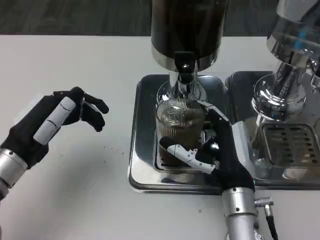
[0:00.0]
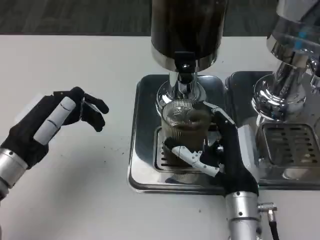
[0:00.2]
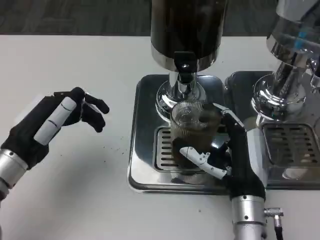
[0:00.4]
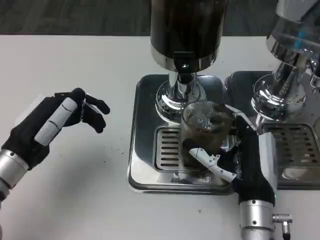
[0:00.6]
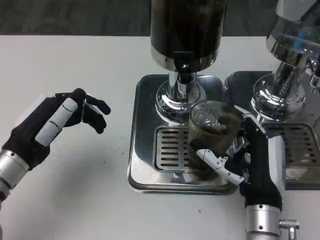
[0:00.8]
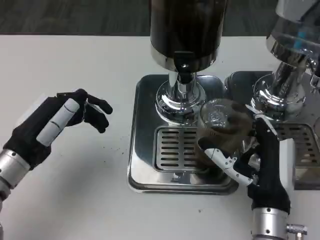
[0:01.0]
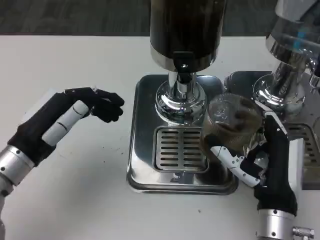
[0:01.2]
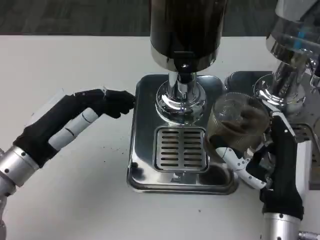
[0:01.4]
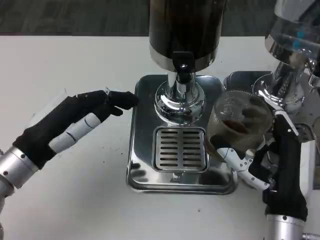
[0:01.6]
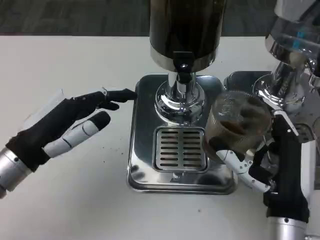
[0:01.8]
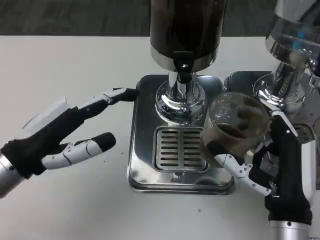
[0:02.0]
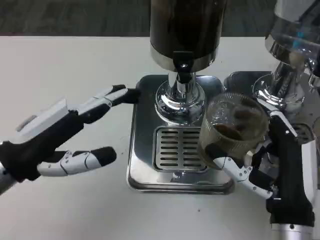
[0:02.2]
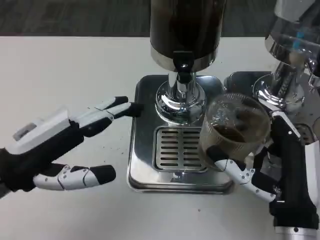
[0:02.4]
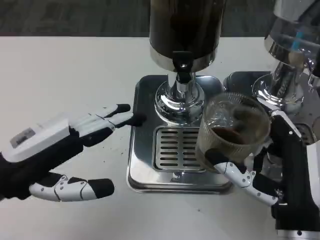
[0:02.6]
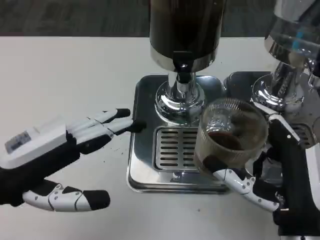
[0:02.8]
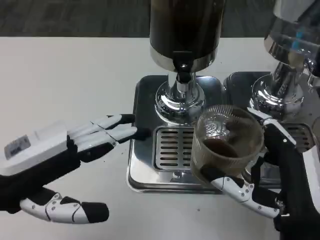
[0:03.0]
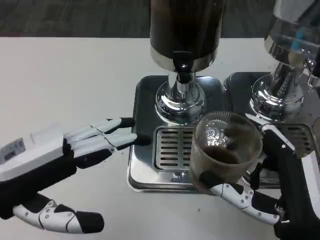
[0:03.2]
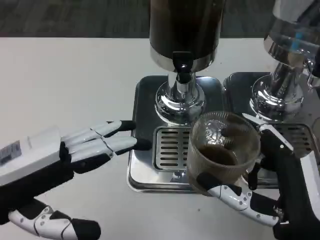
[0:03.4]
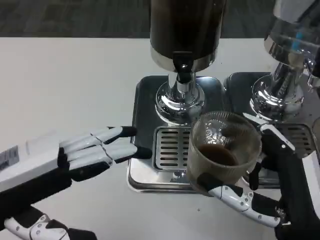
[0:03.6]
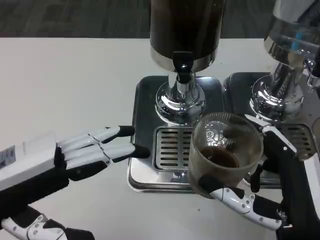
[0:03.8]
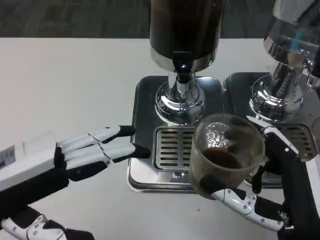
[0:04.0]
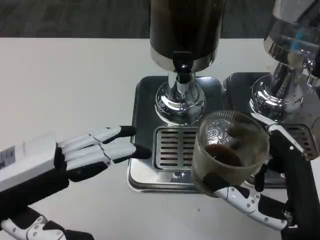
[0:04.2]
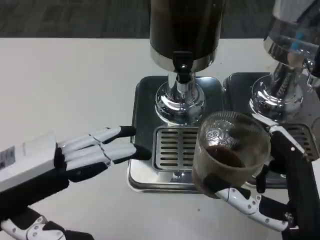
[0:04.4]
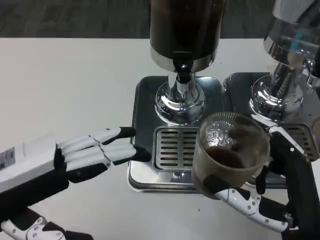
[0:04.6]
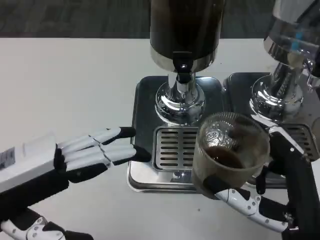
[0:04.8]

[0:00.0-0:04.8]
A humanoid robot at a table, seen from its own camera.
Task of the whole recording: Grasp the cup under the faucet to collect the drink, then remove the cup.
0:00.0 to 0:01.6: The right hand moves roughly 5 cm.
0:01.6 to 0:03.2: The right hand heads backward, covering approximately 5 cm; the left hand is displaced backward and upward by some 10 cm.
0:03.2 to 0:04.8: The hands move only a little.

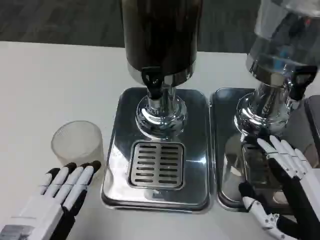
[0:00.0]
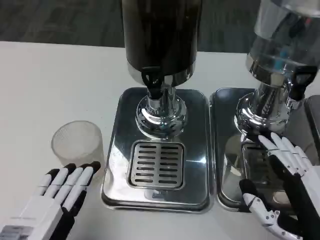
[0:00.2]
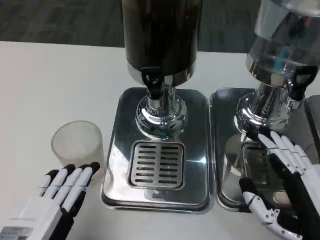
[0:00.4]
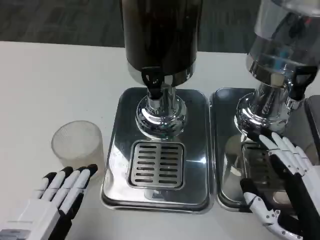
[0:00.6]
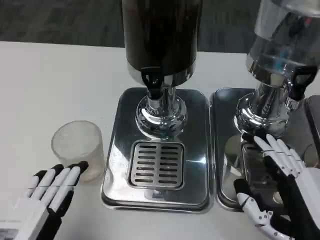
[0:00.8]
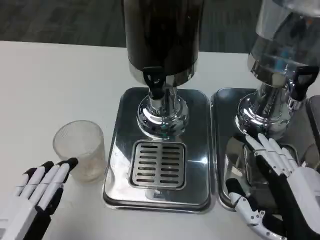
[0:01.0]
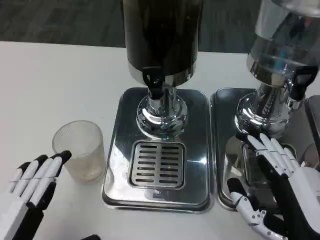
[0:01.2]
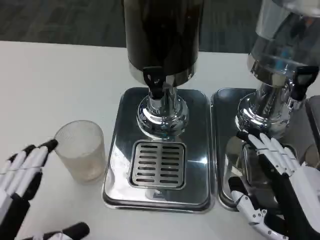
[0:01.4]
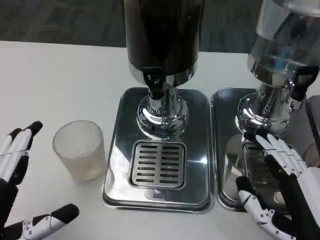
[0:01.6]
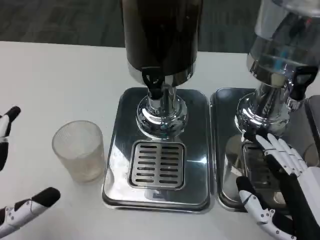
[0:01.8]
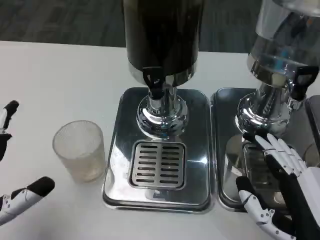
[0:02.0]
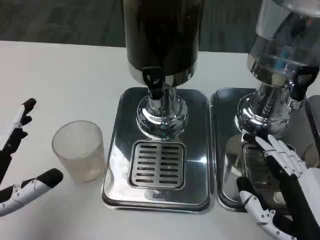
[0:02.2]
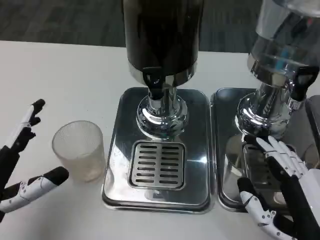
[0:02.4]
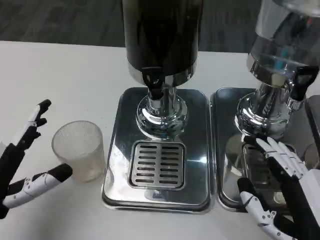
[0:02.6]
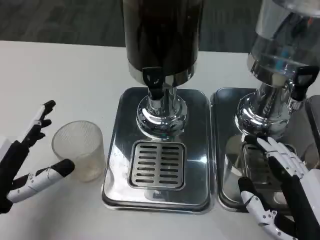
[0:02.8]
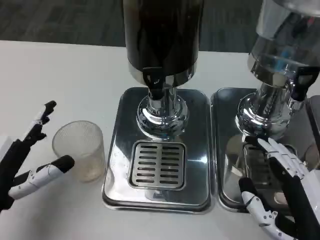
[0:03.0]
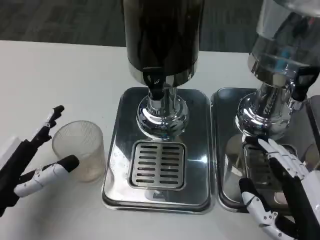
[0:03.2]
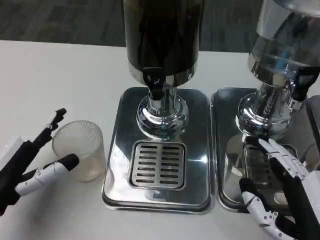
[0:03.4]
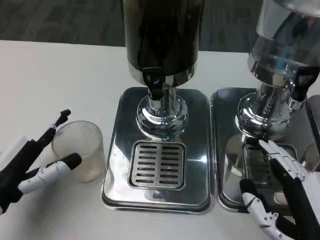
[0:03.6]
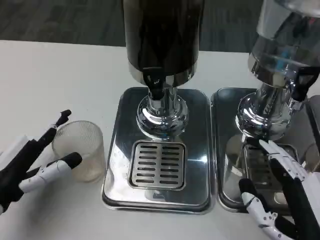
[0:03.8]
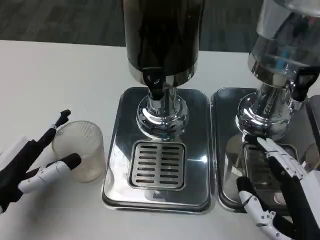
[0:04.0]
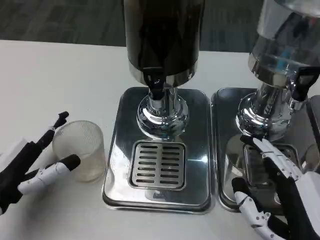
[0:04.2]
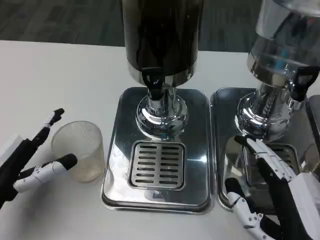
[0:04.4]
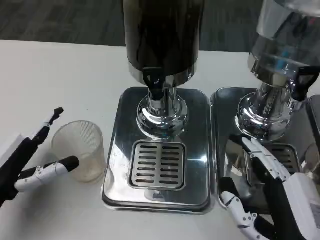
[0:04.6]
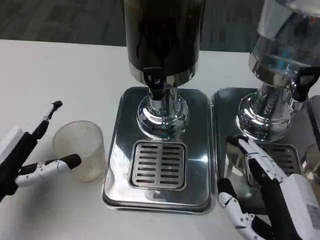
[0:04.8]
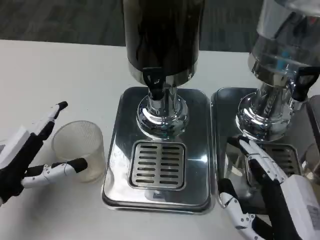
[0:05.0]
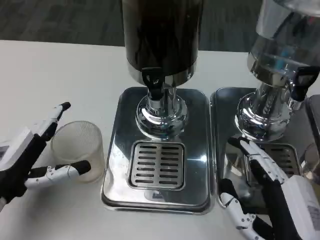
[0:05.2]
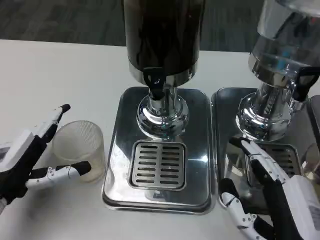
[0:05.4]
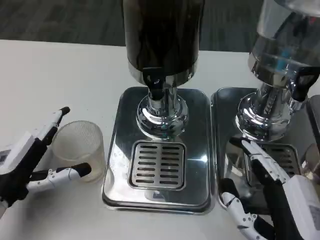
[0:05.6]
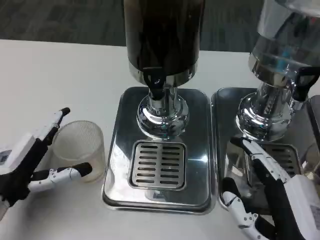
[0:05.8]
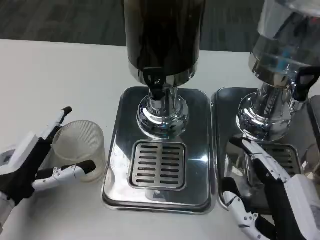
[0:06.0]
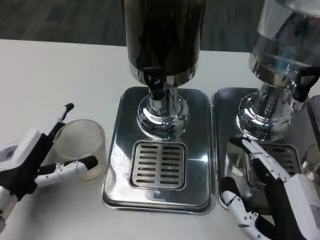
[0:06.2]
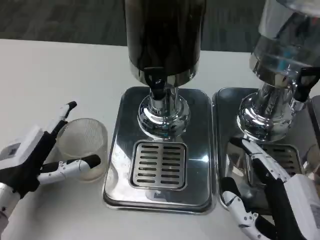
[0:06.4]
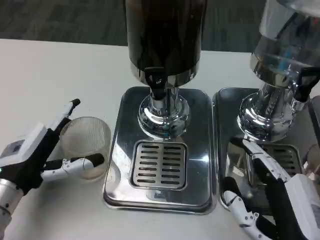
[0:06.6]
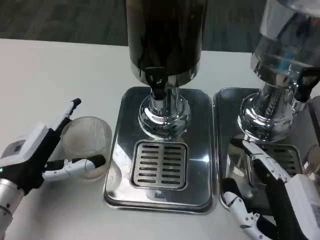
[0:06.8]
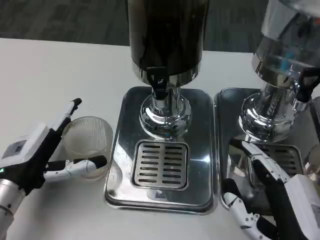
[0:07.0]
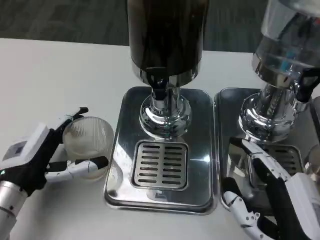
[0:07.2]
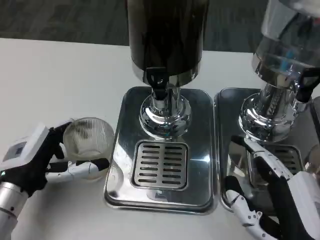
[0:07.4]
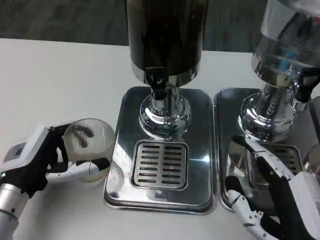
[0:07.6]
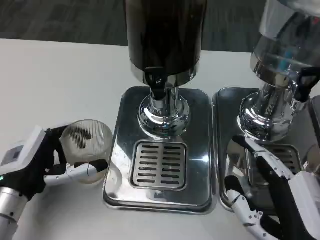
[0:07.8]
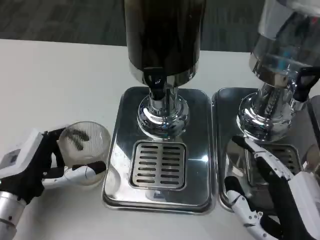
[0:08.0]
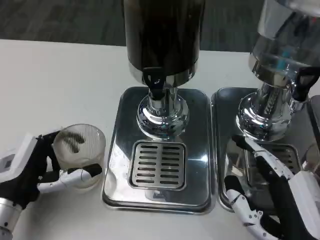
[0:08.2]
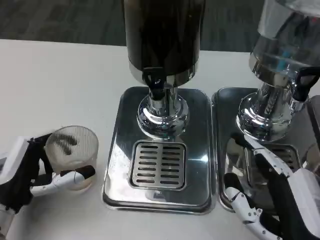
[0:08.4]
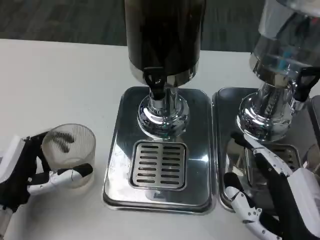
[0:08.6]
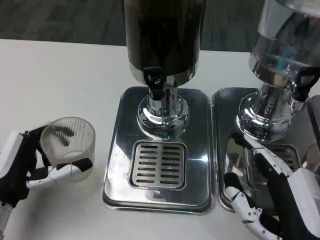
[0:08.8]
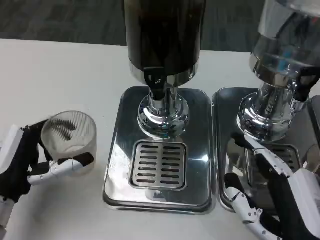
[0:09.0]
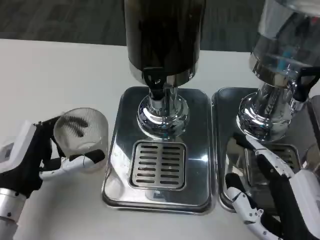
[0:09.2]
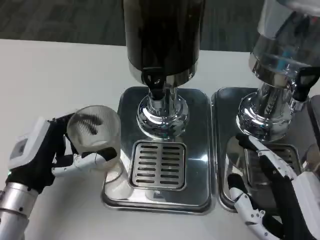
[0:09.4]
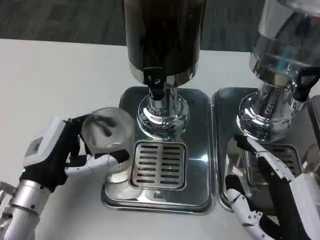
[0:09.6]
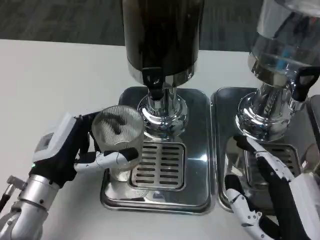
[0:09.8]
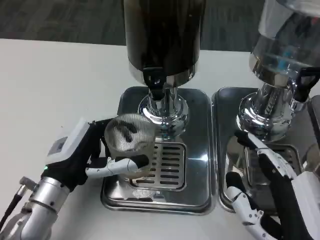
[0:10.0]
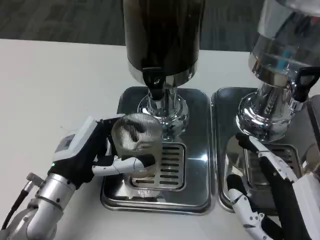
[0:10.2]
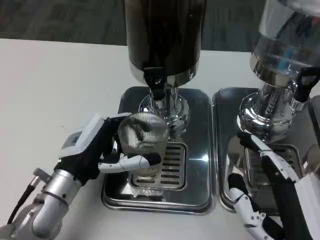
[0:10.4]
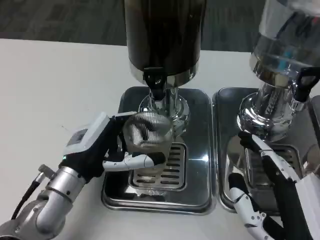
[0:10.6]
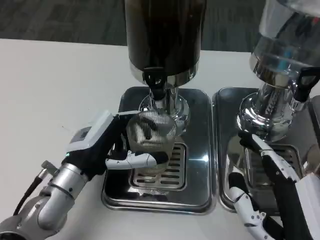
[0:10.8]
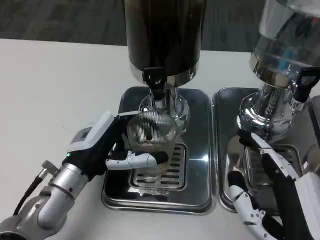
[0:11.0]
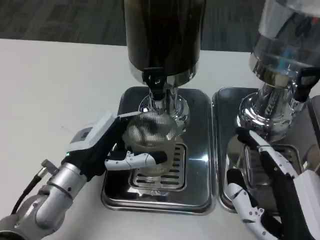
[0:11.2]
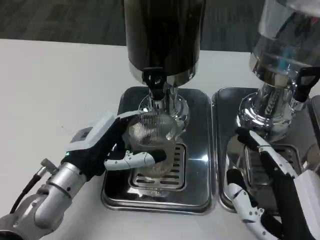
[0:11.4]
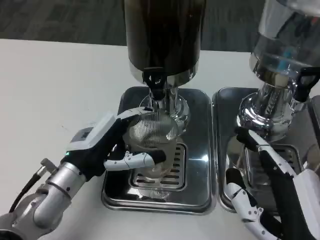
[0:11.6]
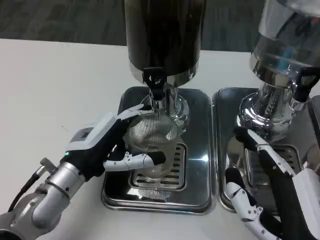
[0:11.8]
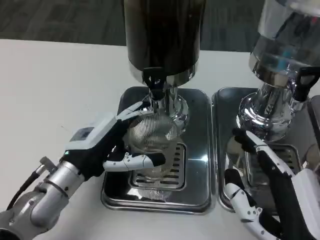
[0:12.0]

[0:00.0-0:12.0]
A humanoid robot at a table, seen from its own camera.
Task of the whole recording: Grasp the cup under the faucet to collect the drink, then remove the cup.
0:01.6 to 0:03.0: The left hand is displaced forward by roughly 10 cm.
0:03.0 to 0:06.0: The hands make only small movements.
0:07.6 to 0:09.0: The hands make only small movements.
0:09.0 to 0:10.4: The left hand travels to the right by approximately 10 cm.
0:10.4 to 0:12.0: There are only small adjustments of the hands.

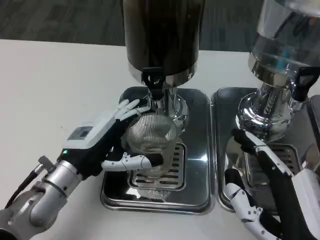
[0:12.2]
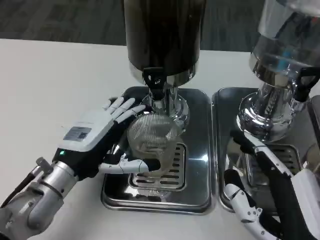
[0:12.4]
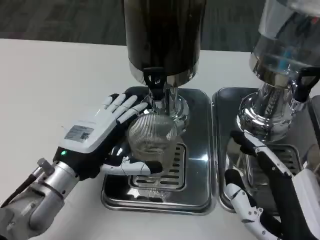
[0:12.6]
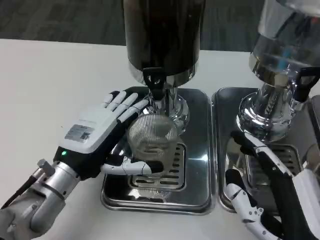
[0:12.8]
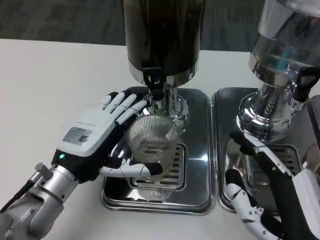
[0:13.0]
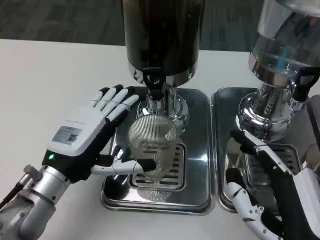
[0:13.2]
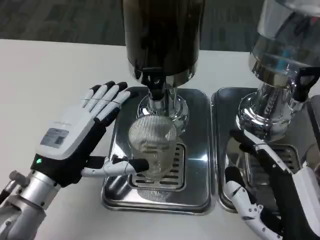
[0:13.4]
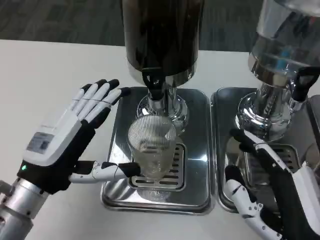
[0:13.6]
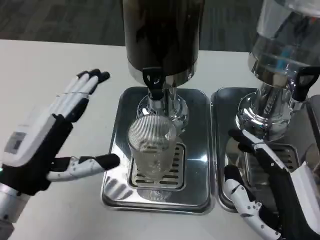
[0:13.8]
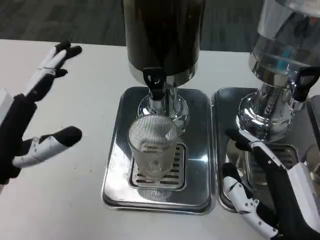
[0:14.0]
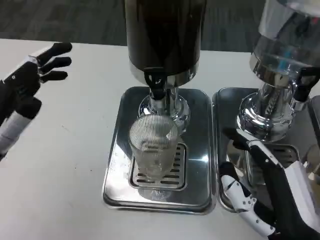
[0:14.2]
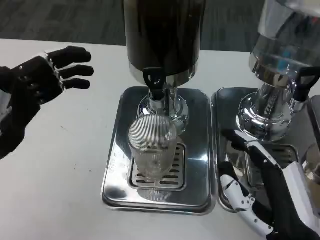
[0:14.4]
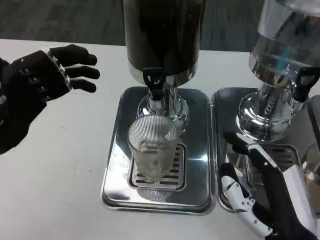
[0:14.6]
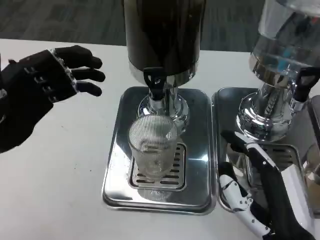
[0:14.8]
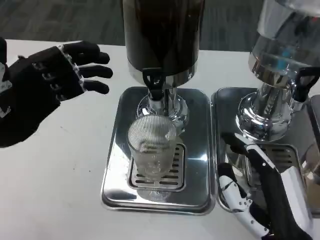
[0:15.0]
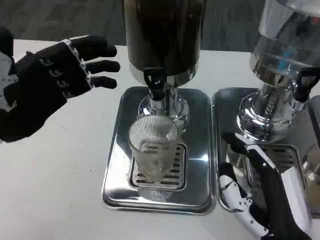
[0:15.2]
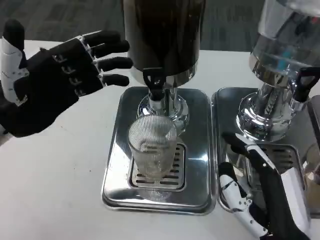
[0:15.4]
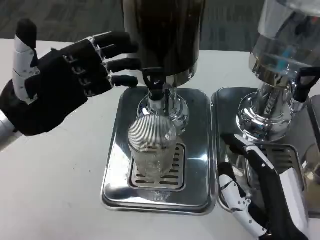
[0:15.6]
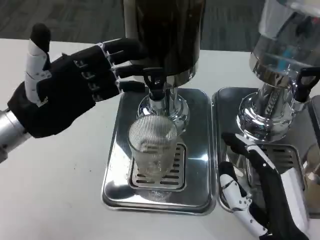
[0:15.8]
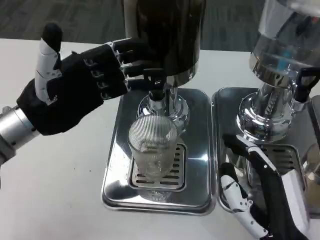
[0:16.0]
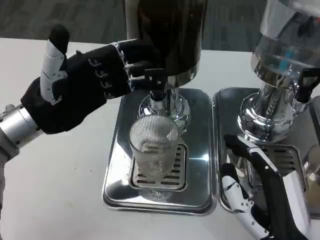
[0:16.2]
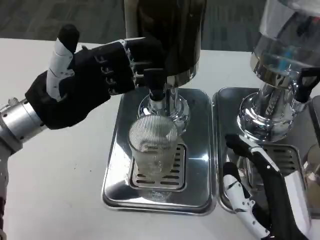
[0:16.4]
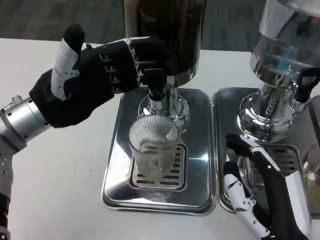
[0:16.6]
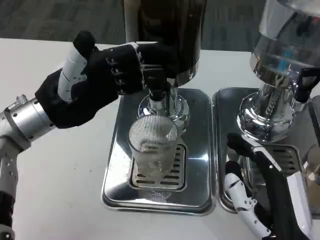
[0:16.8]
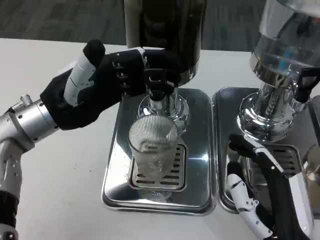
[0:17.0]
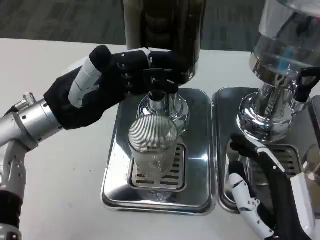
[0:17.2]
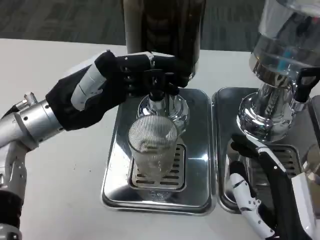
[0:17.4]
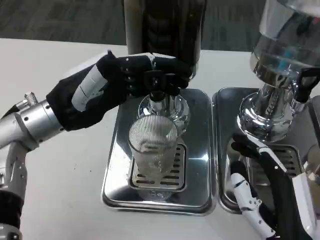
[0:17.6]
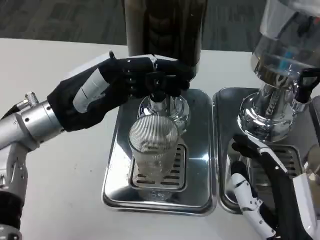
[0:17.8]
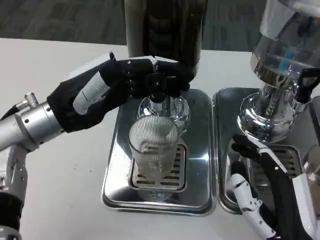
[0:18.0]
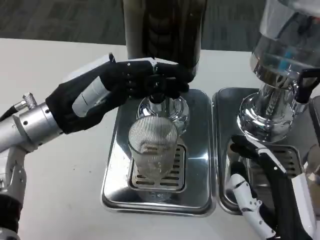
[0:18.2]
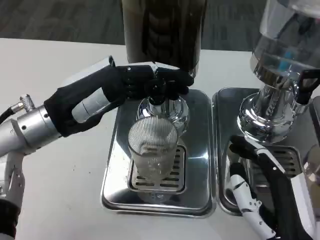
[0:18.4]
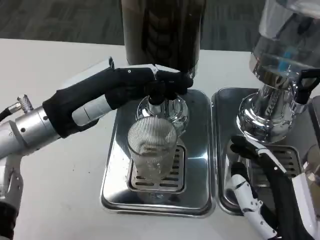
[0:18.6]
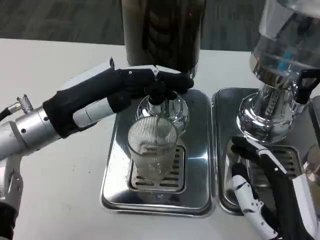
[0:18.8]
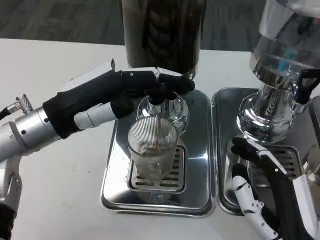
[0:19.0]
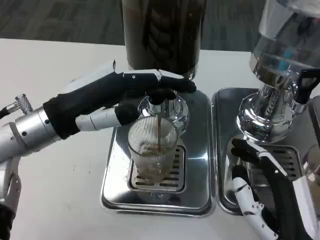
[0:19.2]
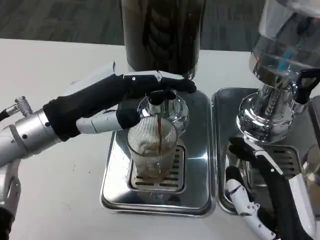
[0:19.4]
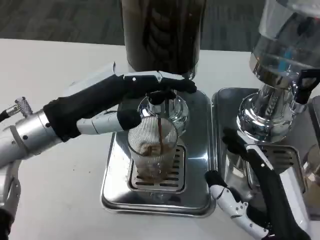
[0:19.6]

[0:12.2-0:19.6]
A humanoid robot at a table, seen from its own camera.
Task of the whole recording: Grasp the cup under the faucet to collect the drink, then remove the cup.
0:12.2 to 0:13.6: The left hand shifts about 5 cm backward.
0:13.6 to 0:15.2: The left hand is displaced upward, to the left and forward by some 10 cm.
0:15.2 to 0:16.6: The left hand shifts approximately 5 cm to the right.
